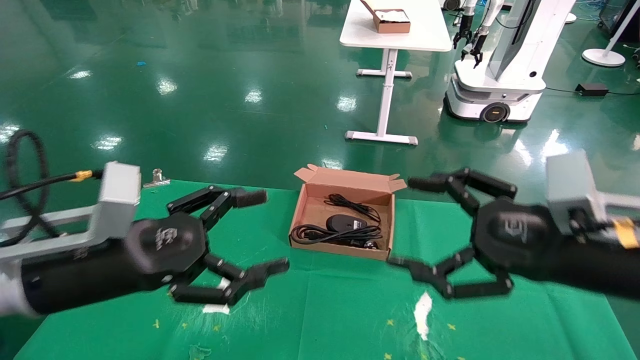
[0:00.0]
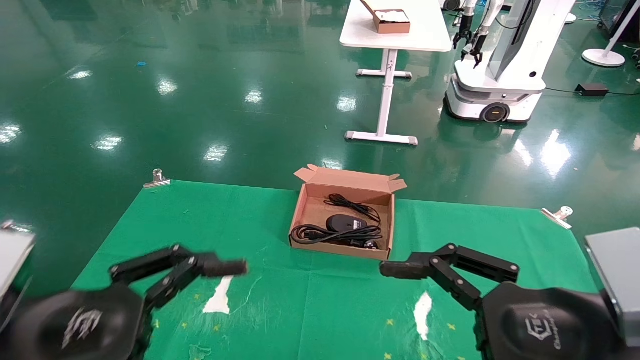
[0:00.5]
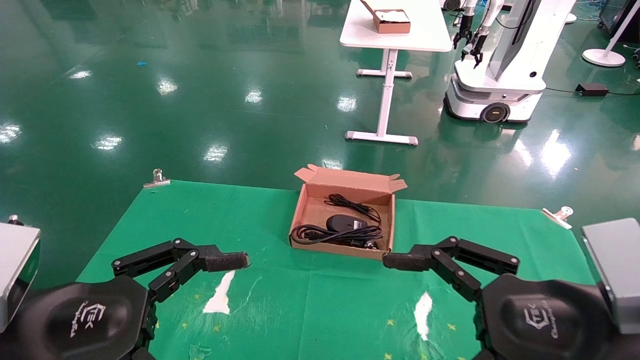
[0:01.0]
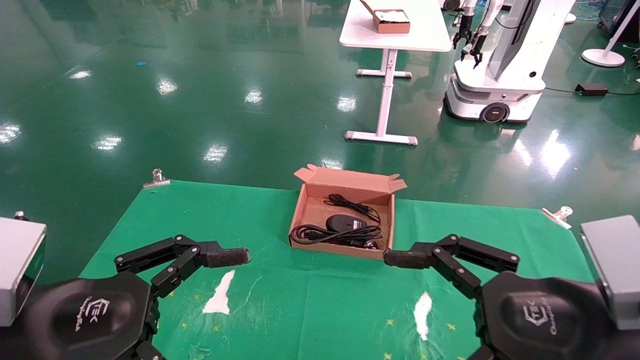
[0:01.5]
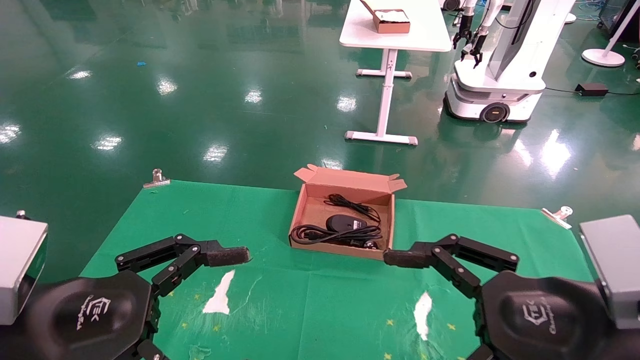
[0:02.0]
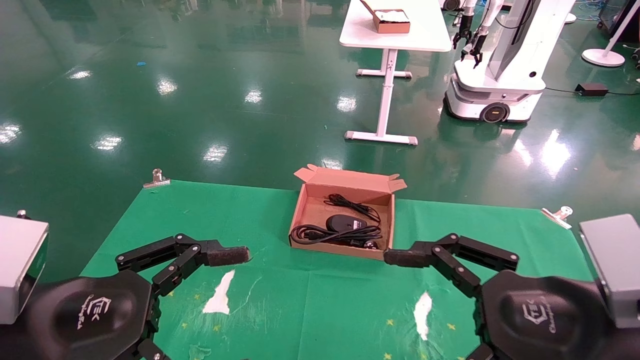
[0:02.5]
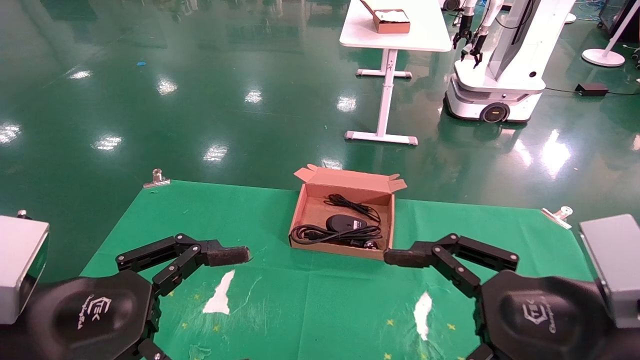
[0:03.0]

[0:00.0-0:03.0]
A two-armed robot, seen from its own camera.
0:00.0 to 0:01.5: Both grippers move backward, roughly 5 cm.
0:01.5 to 0:03.0: The two grippers keep their place.
